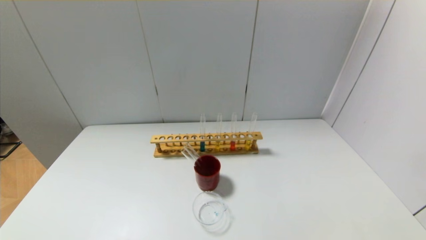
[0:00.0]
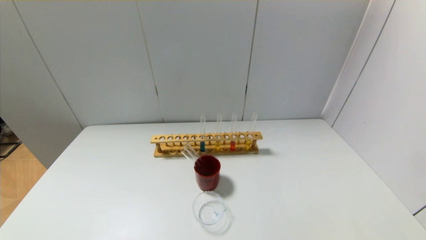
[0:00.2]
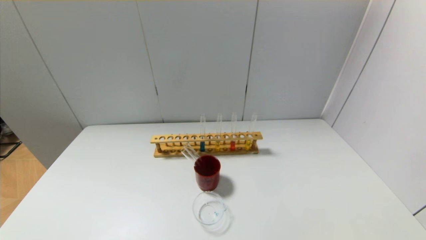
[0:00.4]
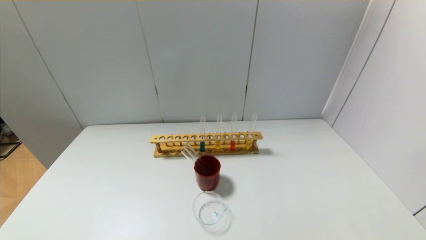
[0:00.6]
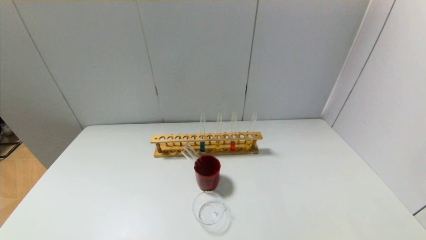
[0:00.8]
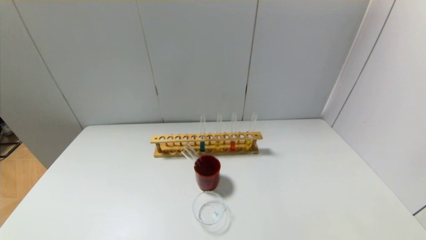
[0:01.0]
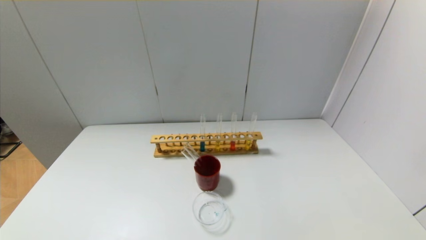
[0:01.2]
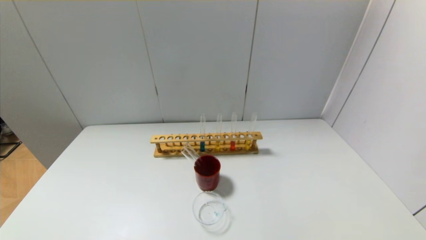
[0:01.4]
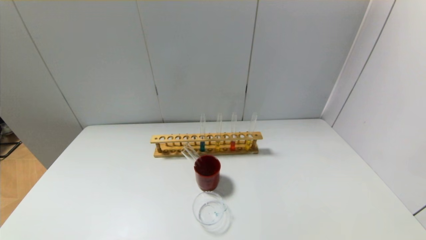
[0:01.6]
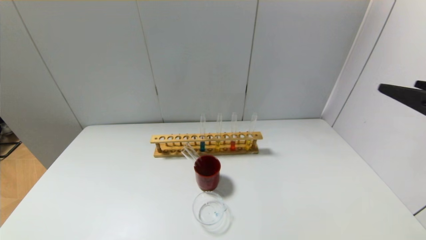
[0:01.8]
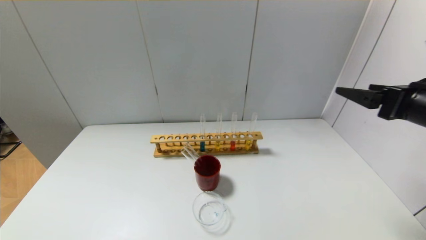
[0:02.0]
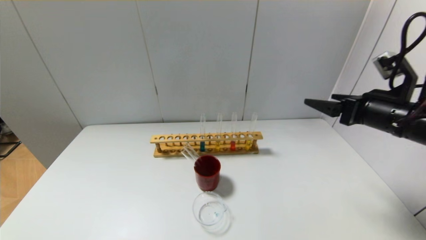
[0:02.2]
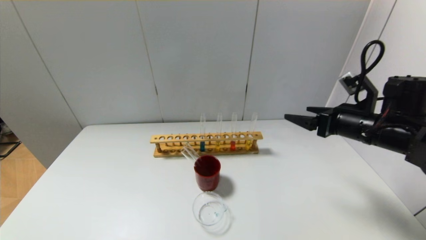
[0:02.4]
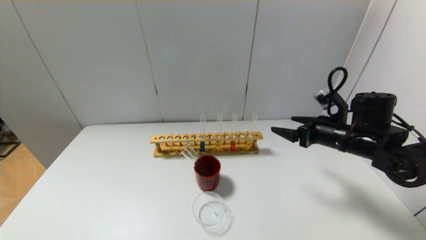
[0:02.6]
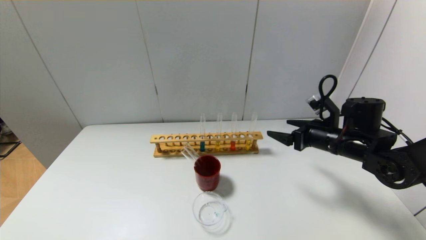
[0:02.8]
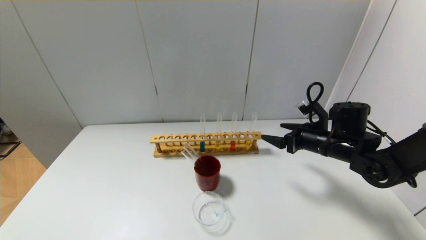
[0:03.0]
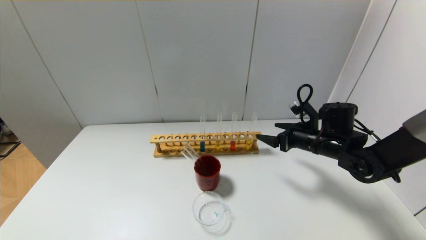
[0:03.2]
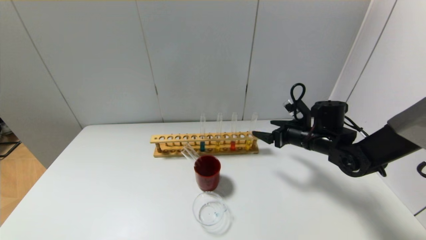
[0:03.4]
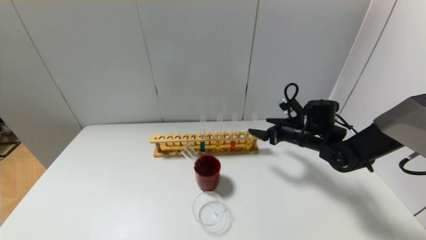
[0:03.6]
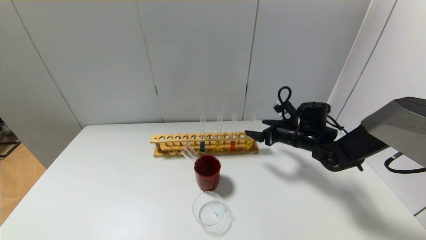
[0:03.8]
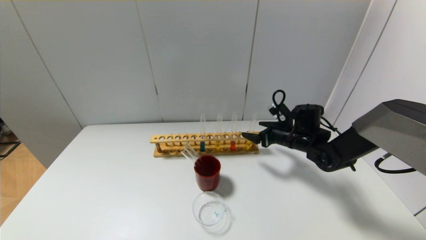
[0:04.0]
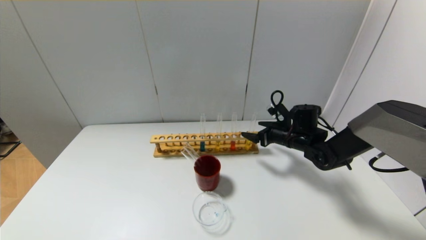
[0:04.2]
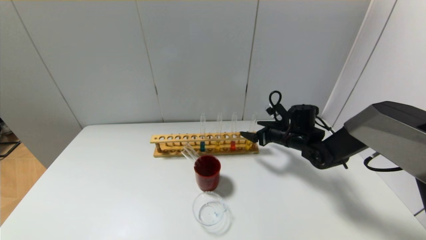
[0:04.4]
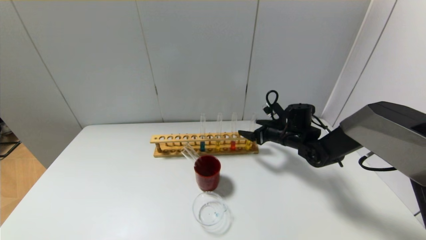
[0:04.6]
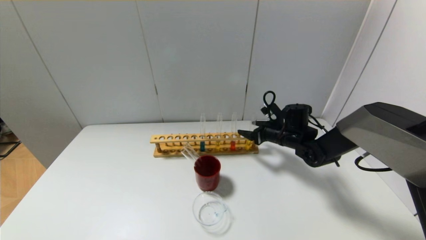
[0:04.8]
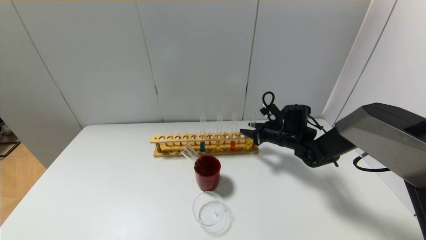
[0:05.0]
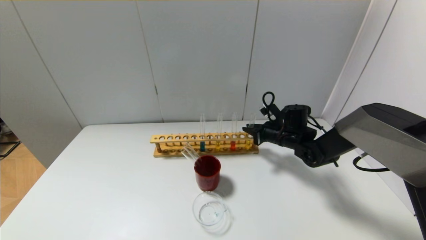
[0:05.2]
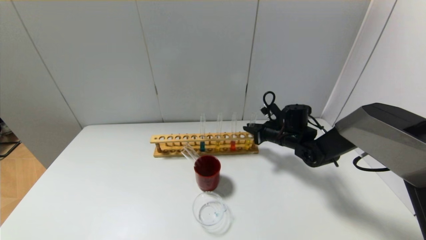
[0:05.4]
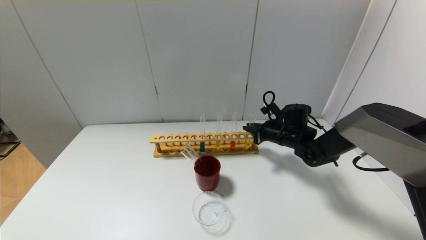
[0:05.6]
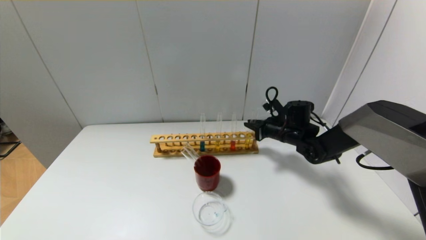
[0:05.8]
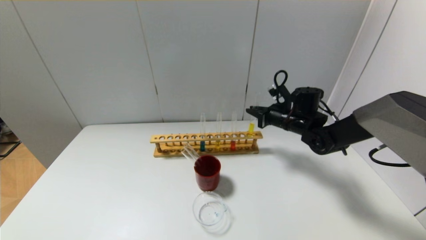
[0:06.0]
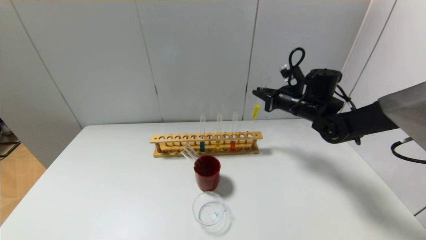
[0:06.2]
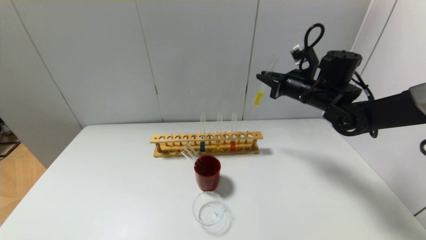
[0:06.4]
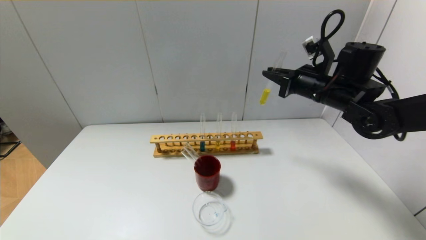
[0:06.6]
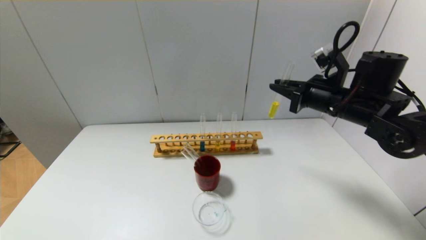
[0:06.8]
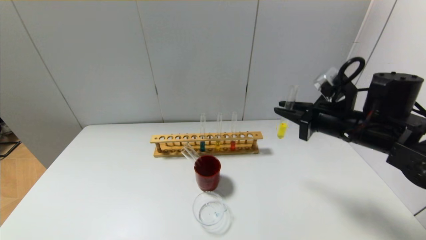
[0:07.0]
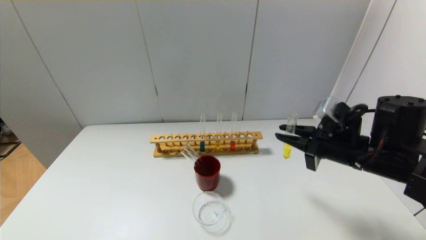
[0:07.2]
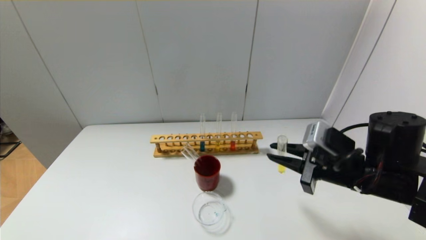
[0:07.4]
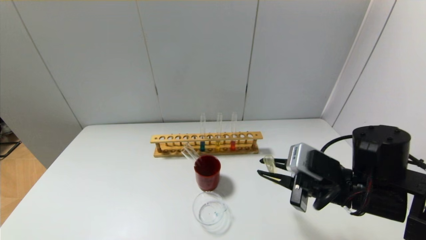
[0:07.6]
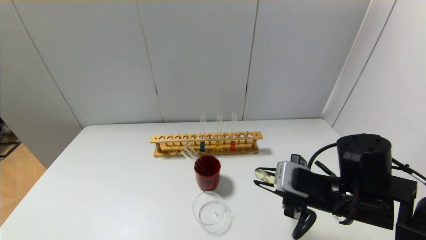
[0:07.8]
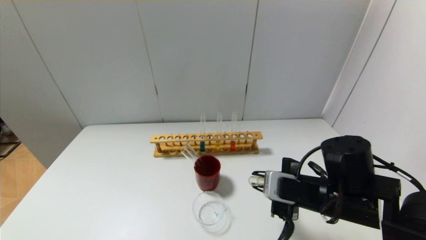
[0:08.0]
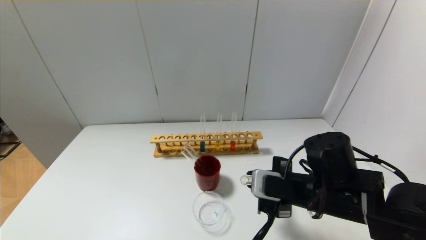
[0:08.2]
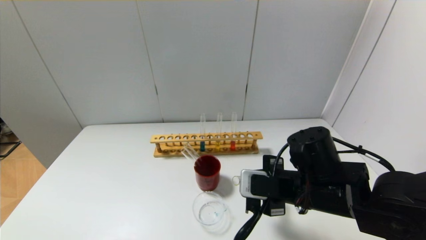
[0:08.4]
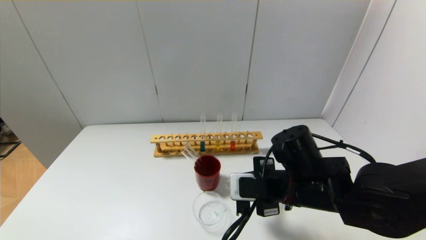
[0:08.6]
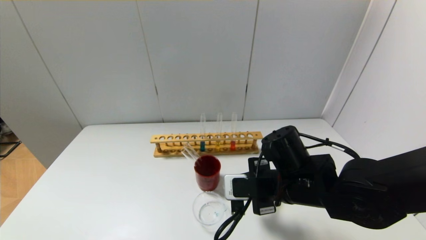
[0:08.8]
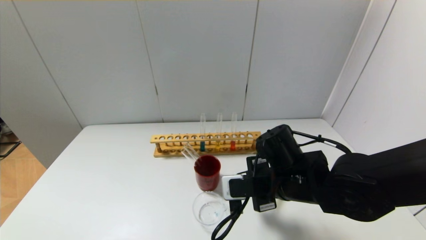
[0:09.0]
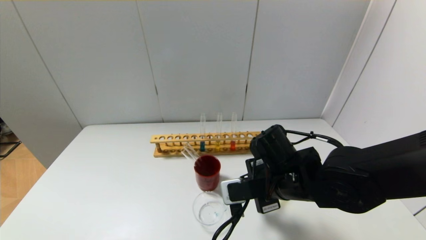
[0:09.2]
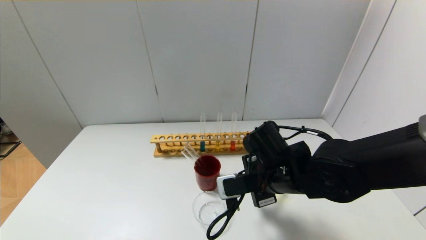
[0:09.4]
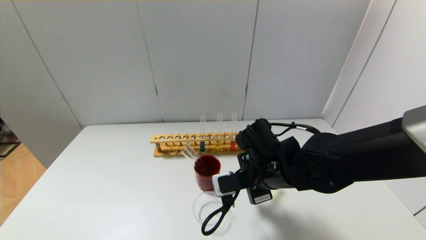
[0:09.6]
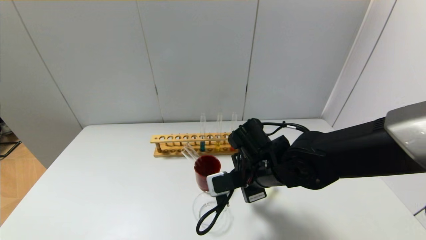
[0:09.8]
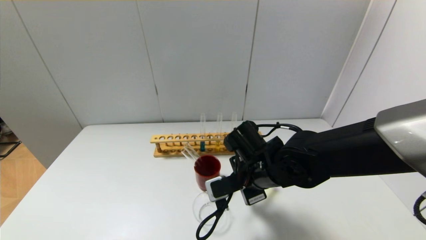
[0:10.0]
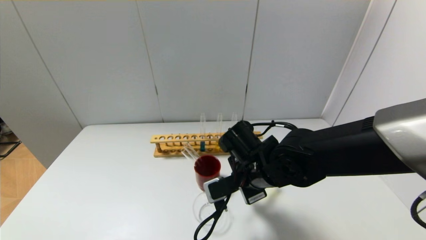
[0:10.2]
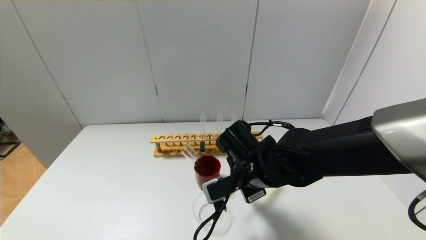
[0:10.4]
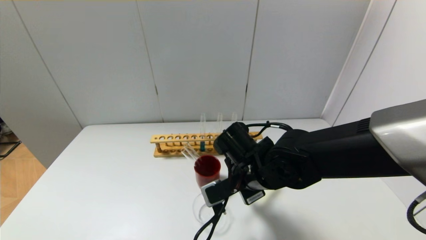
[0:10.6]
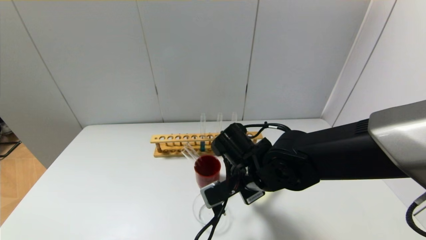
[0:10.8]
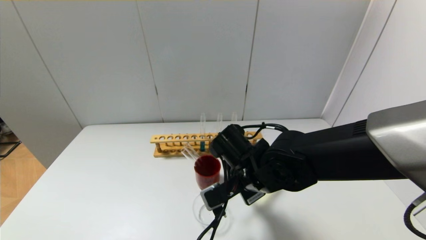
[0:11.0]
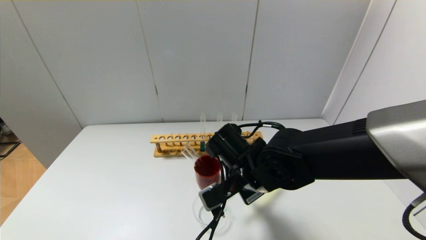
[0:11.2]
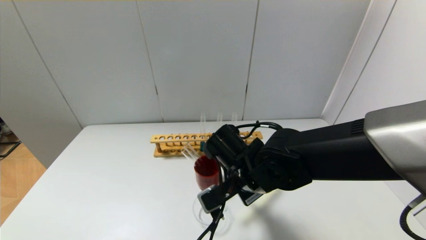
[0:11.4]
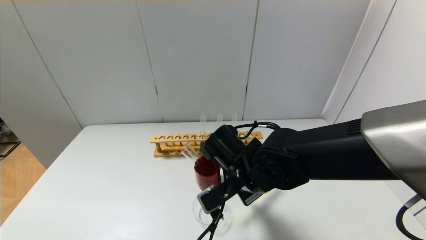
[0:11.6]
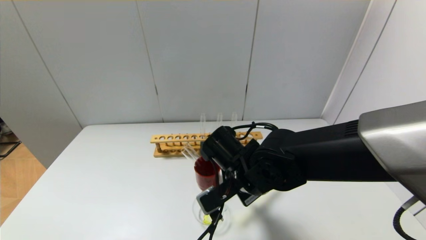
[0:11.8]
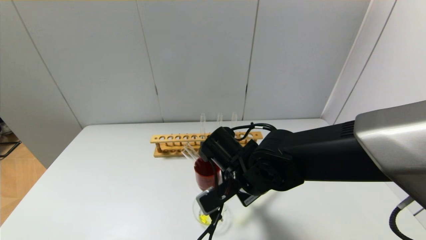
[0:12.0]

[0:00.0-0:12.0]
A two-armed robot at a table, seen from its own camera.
Step, 0:00.0 to 0:05.2: Grasp the yellow reagent with the right gripper.
0:01.6 to 0:03.0: The right gripper shifts approximately 30 cm forward and downward.
0:03.0 to 0:04.4: The right gripper travels forward by approximately 10 cm.
0:04.4 to 0:06.0: The right gripper goes some 5 cm upward, and closes.
0:06.0 to 0:07.6: The right gripper heads backward, covering approximately 25 cm.
0:07.6 to 0:09.0: The right gripper heads to the left, covering some 10 cm.
0:09.0 to 0:10.4: The right gripper moves about 5 cm.
0:10.4 to 0:12.0: The grippers stay close to where they were, moving slightly.

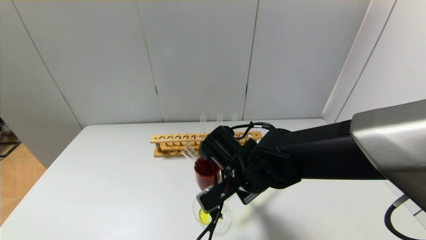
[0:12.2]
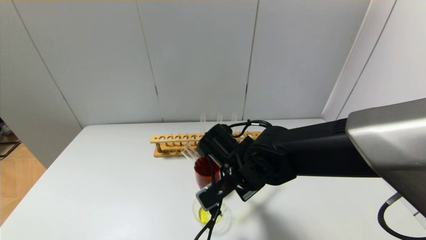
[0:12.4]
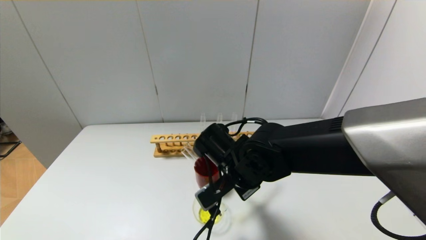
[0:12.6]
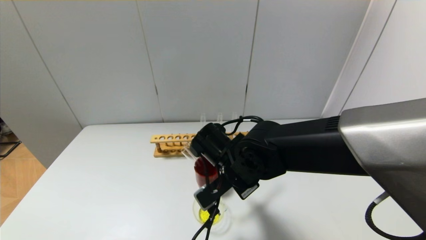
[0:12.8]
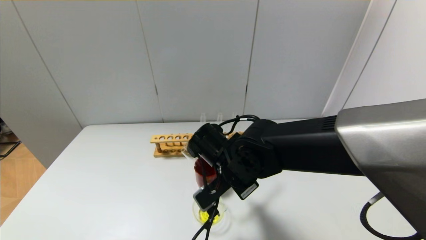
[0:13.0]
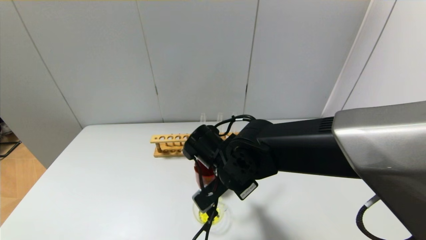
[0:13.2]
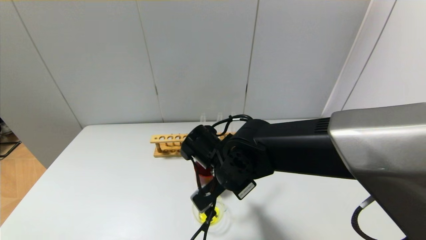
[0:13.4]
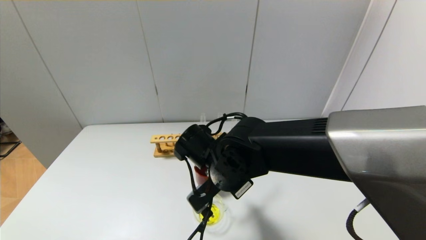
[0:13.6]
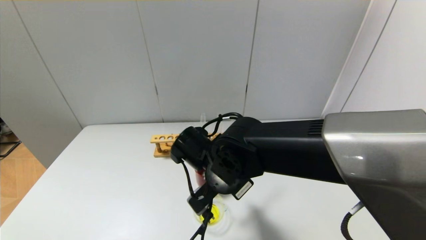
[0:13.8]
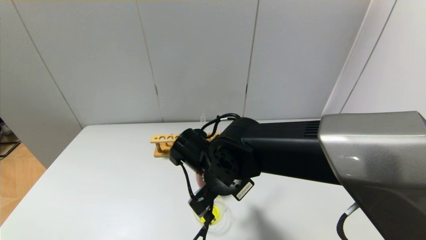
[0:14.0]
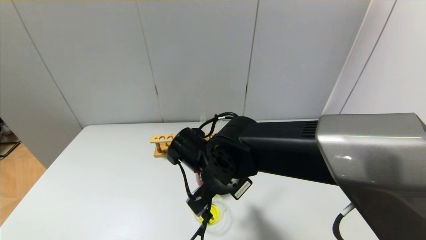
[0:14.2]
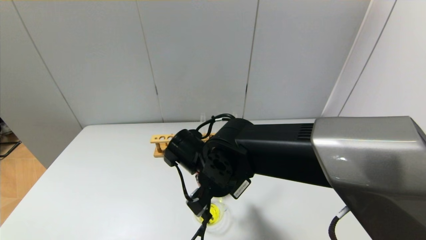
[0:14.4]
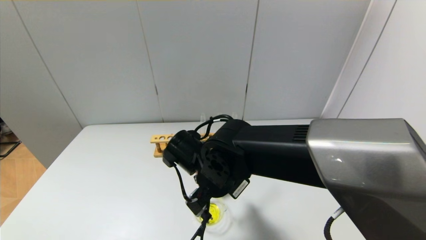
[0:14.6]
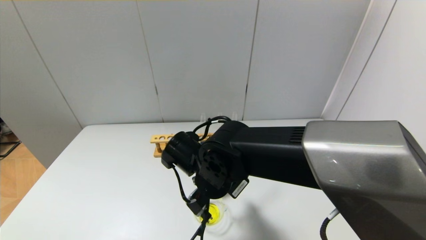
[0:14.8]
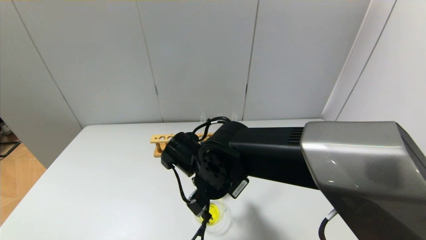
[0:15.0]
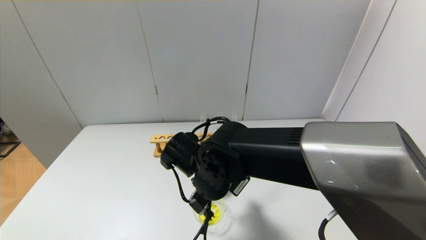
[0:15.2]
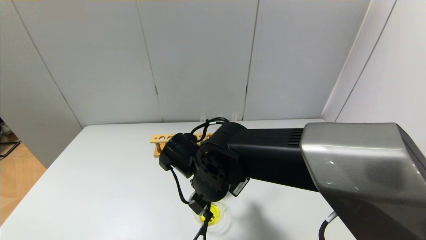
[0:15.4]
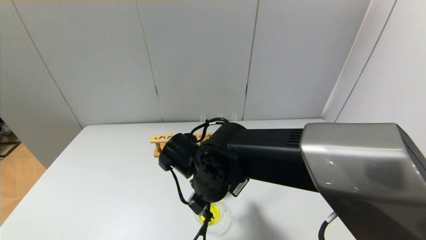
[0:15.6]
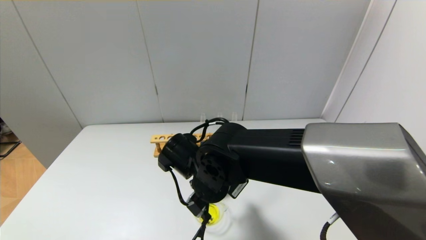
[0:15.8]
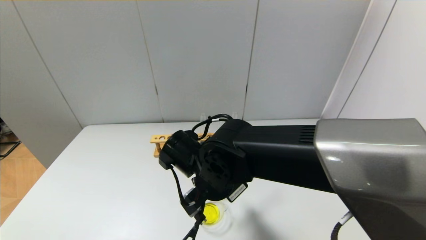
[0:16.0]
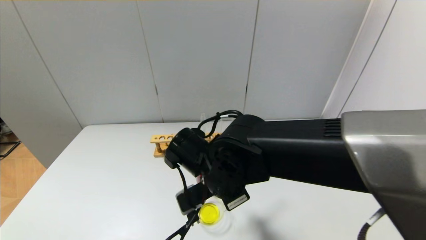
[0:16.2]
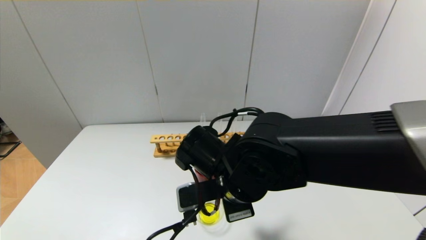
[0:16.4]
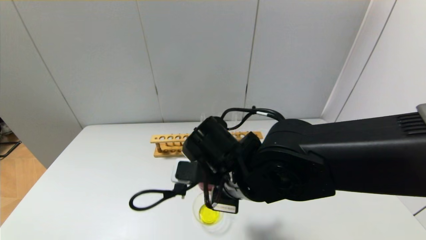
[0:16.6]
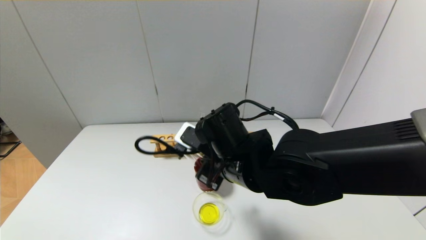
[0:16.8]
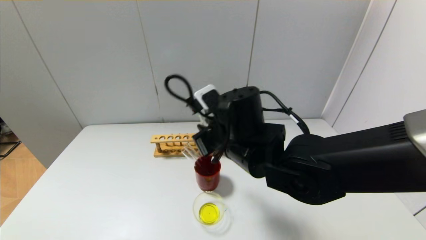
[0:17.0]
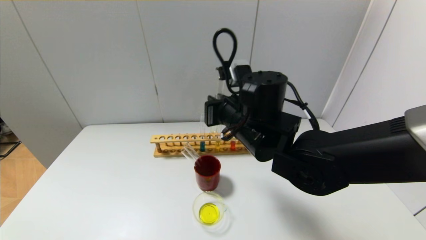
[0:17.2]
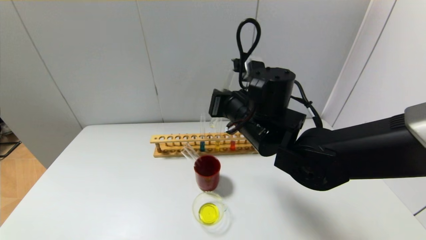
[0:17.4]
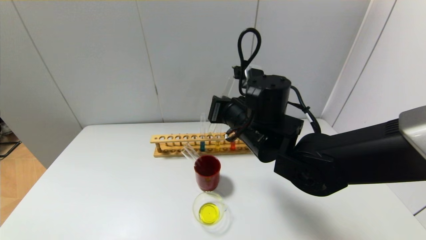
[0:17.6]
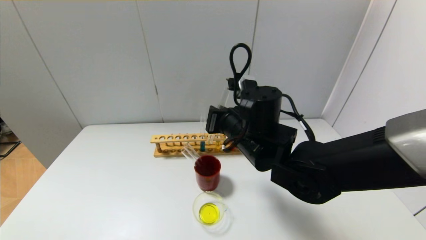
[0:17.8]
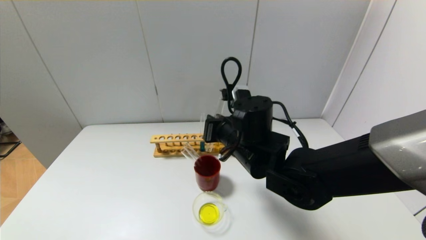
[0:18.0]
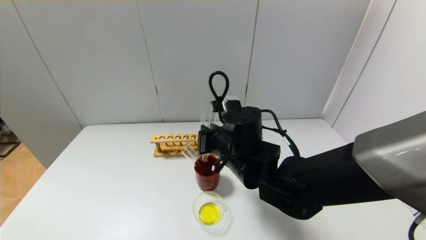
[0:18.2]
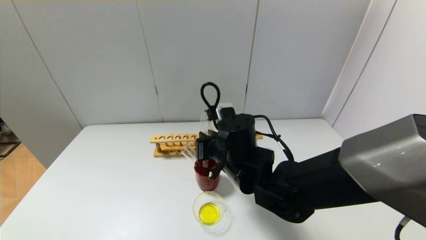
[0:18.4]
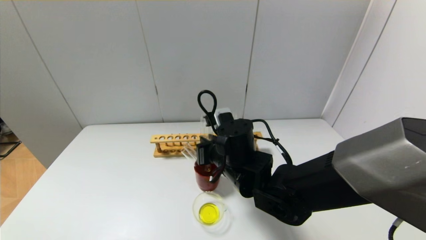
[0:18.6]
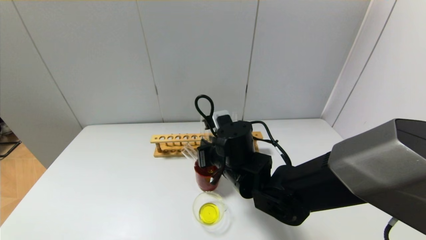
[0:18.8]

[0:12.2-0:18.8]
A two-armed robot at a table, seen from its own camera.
Step, 0:12.2 to 0:15.2: Pour the yellow reagent into the graduated cylinder with the right gripper.
0:12.2 to 0:13.8: There are only small adjustments of the grippers.
0:13.8 to 0:15.4: The grippers move only a little.
0:15.4 to 0:17.2: The right gripper heads upward and to the right, covering roughly 10 cm.
0:17.2 to 0:18.8: The right gripper goes approximately 10 cm downward.
